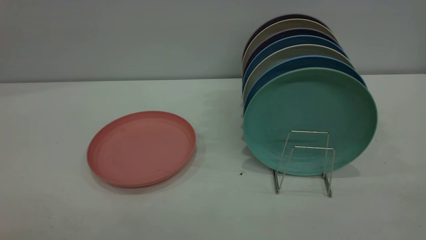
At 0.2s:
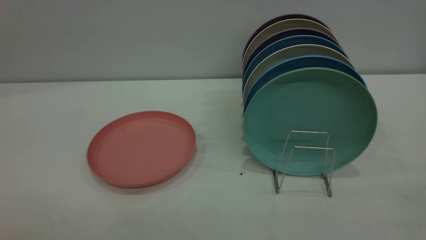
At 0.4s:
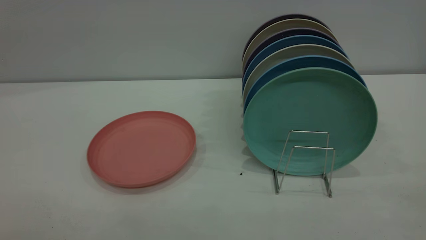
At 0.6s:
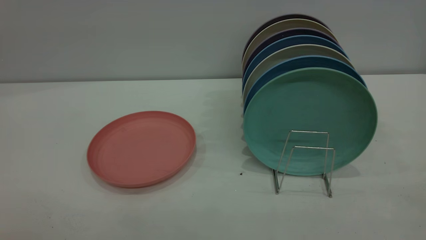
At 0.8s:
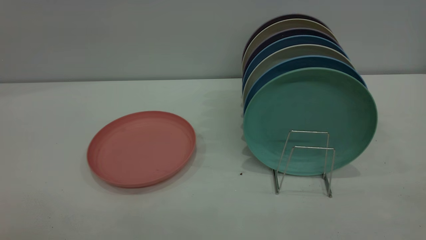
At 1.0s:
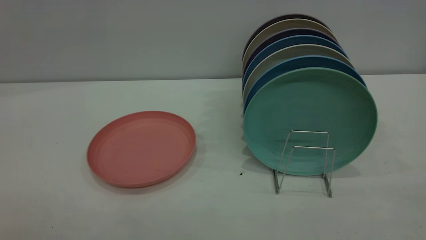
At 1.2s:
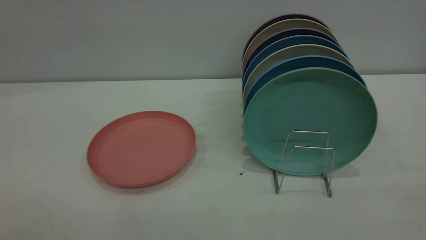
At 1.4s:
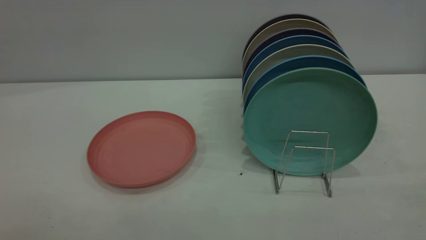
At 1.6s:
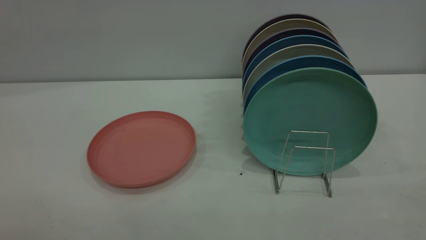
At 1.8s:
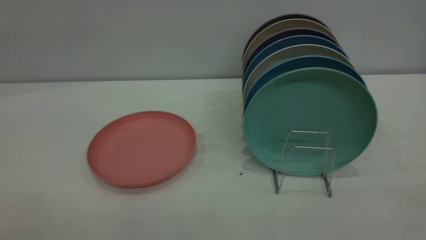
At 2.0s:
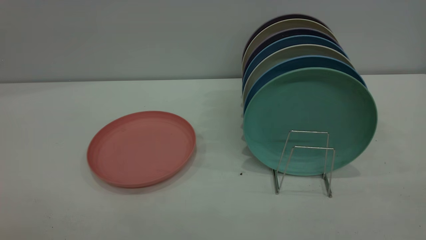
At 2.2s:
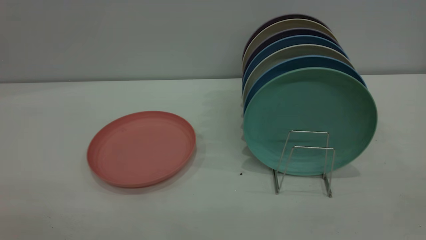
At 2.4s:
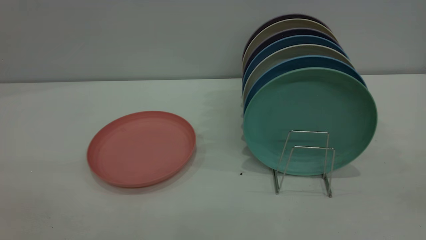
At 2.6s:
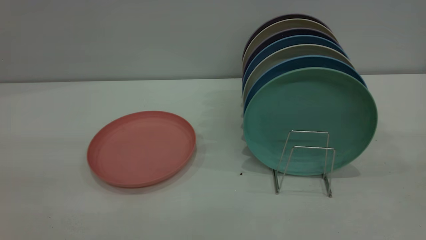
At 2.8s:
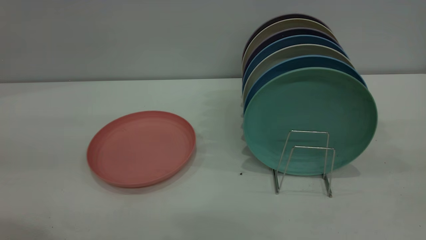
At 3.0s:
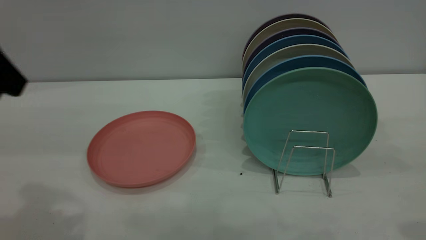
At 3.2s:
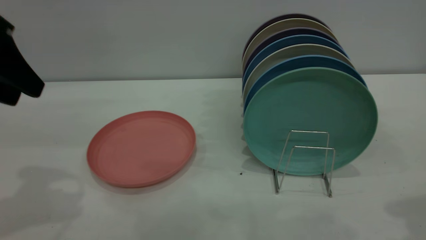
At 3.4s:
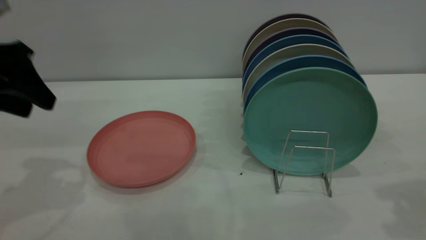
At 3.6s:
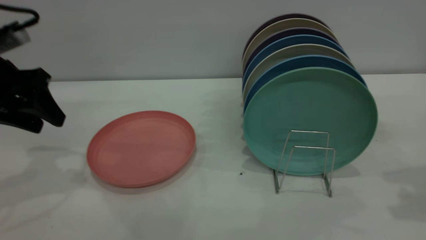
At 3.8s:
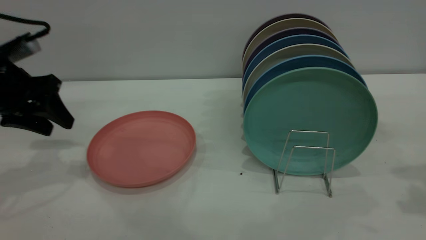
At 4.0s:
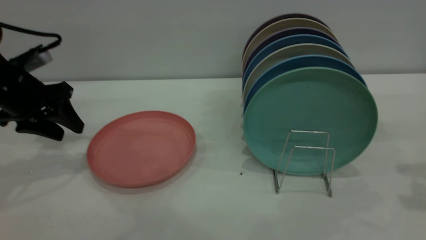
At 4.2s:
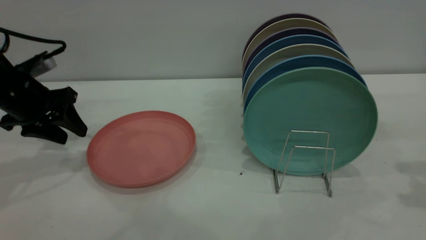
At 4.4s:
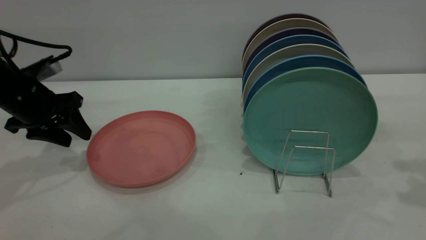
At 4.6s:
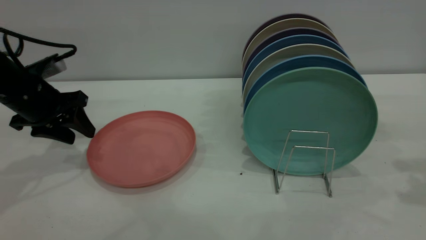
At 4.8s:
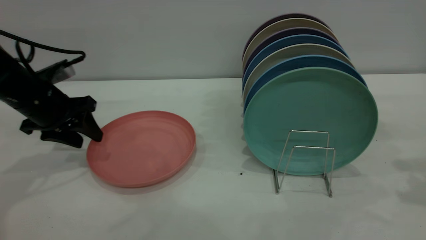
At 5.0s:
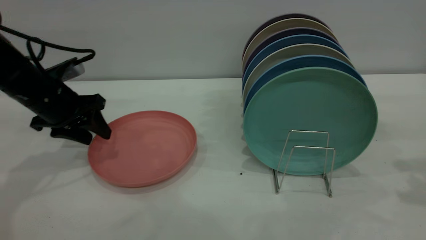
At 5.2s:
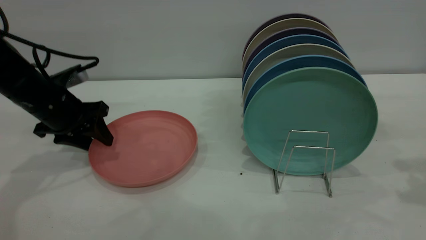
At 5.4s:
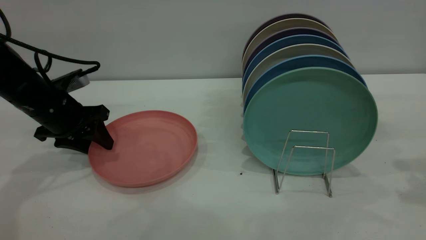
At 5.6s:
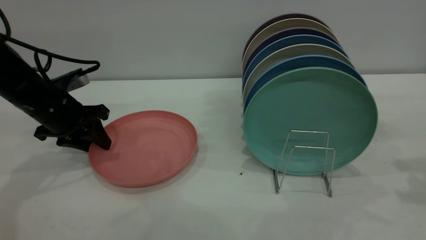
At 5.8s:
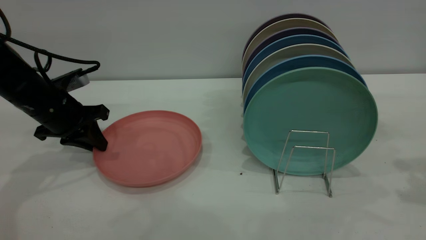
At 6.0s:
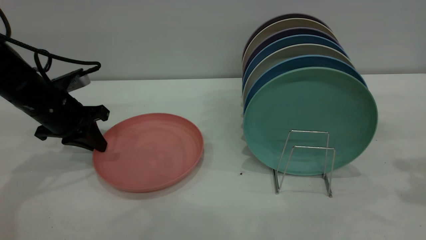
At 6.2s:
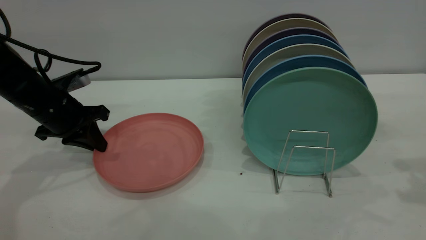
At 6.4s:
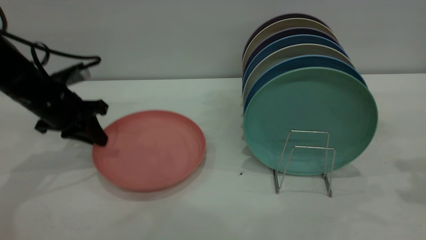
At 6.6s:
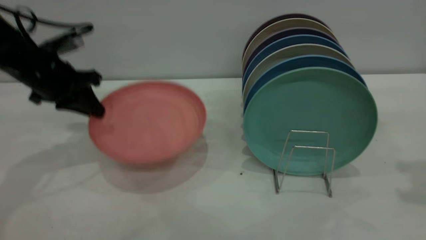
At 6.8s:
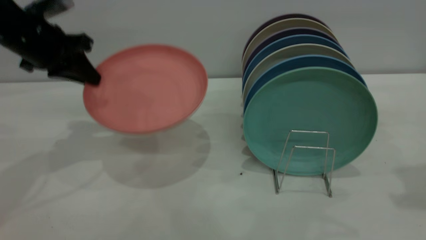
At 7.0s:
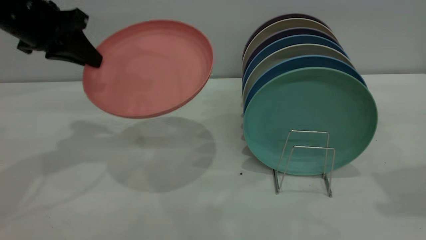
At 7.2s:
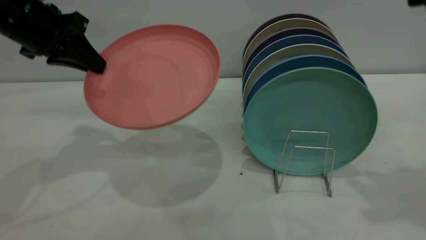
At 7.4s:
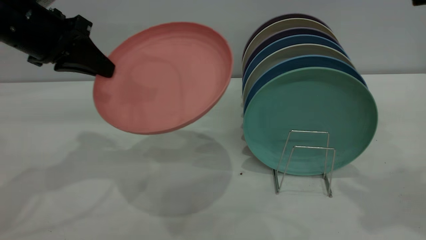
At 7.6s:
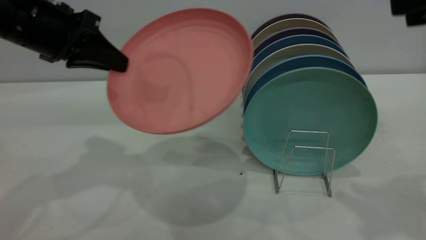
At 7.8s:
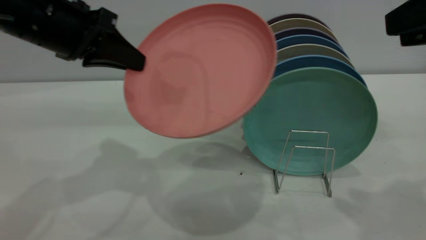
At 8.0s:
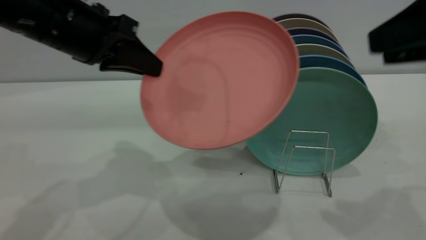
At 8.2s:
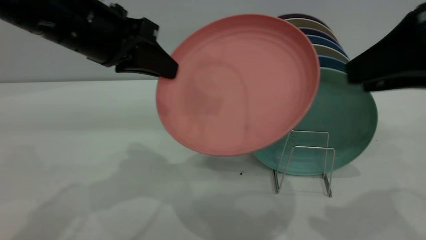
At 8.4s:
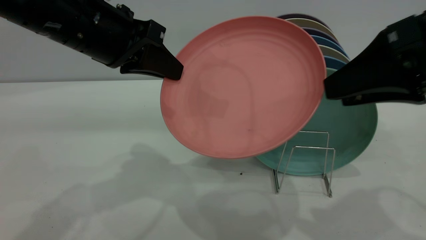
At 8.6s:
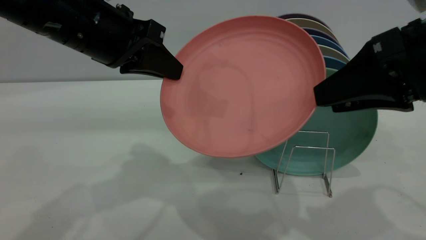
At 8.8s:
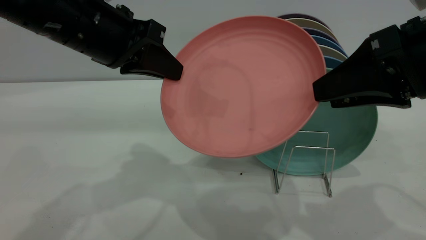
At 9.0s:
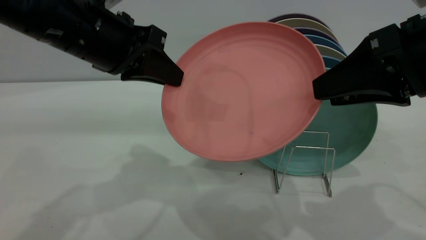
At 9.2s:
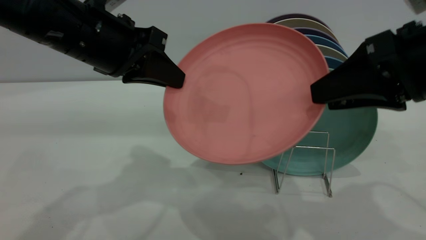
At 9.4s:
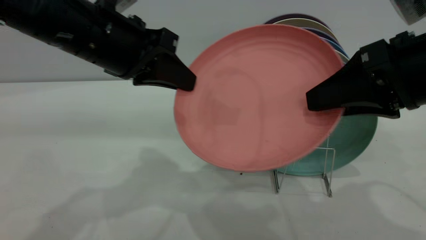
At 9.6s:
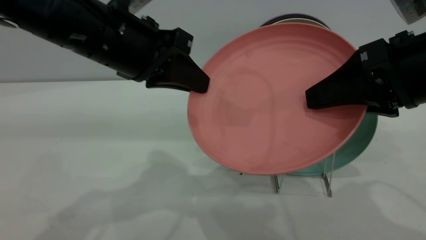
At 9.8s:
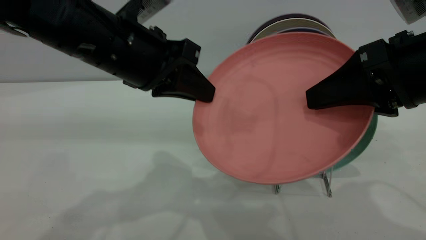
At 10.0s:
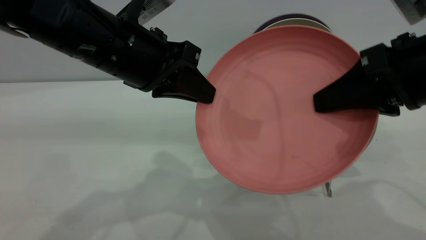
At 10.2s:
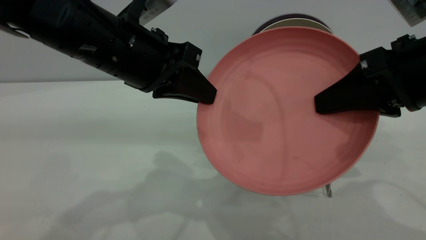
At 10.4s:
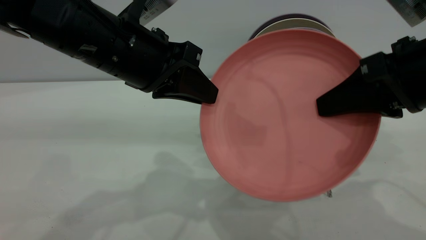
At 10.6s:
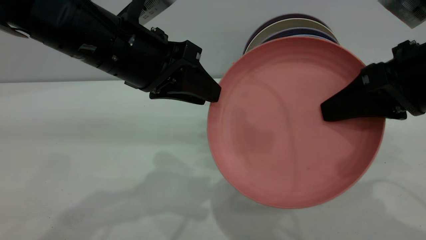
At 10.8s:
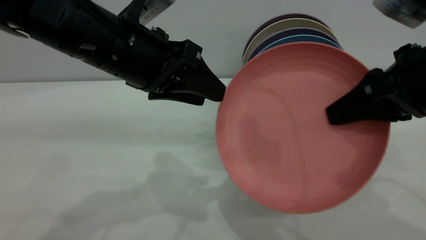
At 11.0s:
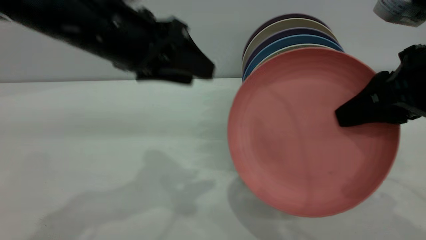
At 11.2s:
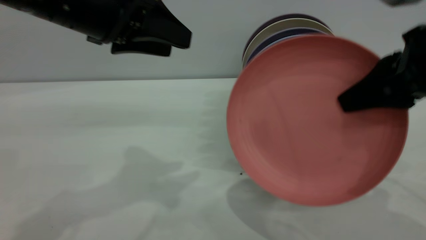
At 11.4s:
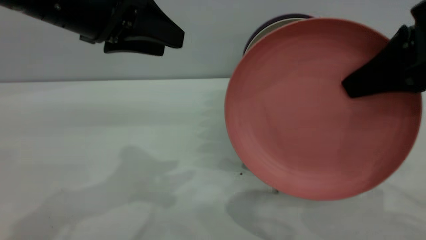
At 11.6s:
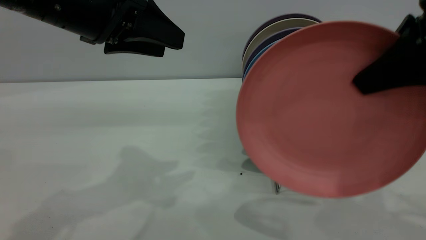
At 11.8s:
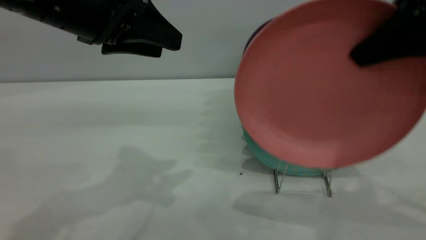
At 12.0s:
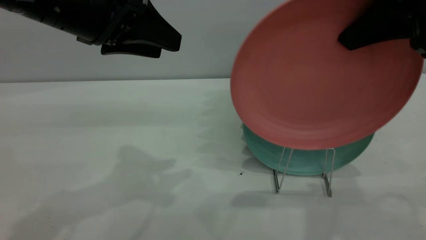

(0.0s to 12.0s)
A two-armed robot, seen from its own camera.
Task of the whole recording: put the plate on the plate rack.
Step, 0.0s - 6.6s: Pick up the plate with the left gripper.
Step, 6.8s - 10.8s: Pass the plate from the left gripper to the right gripper.
0.0s - 1.6s: Both grippers stay put.
1.6s - 3.0s: The left gripper shifts approximately 25 cm forward.
3.0s - 4.4s: The left gripper heads downward and forward, covering approximately 20 cm.
4.4s - 6.0s: The left gripper closes.
6.0s - 7.6s: The right gripper travels upward and to the left by roughly 10 cm, while the left gripper heads upward and backward, covering about 15 cm.
7.6s - 9.0s: The right gripper moves downward and to the left, roughly 10 cm. Meanwhile the left gripper heads to the right, covering about 5 cm.
9.0s - 10.4s: The right gripper closes its fingers.
10.4s - 12.0s: The right gripper travels upward by roughly 10 cm. The left gripper shifts by some 5 cm, and opens its fingers.

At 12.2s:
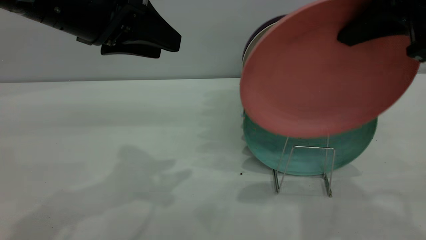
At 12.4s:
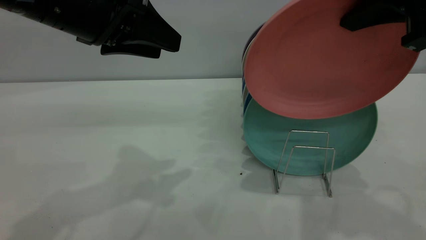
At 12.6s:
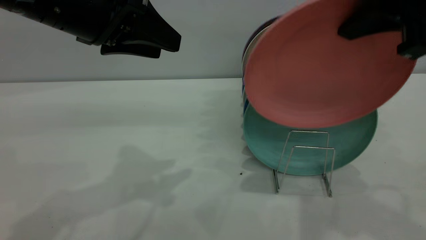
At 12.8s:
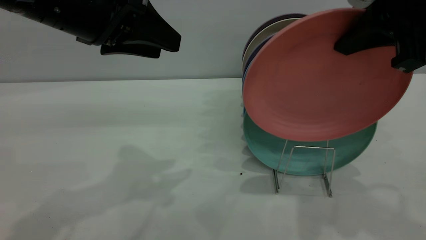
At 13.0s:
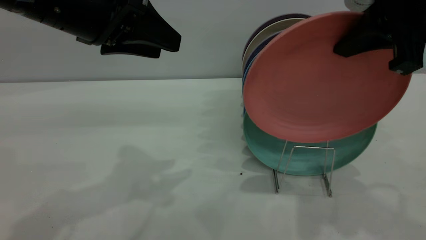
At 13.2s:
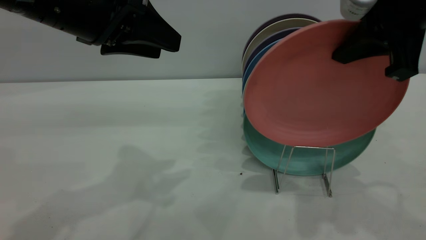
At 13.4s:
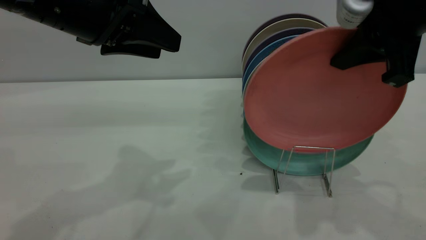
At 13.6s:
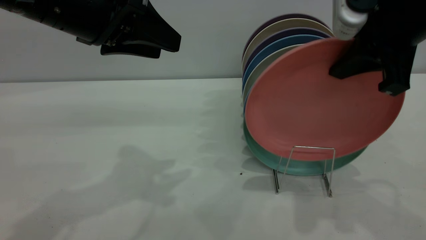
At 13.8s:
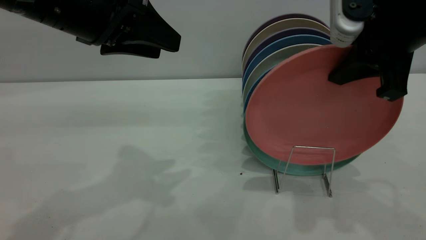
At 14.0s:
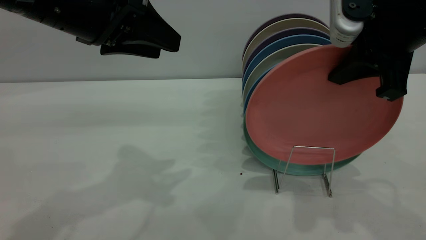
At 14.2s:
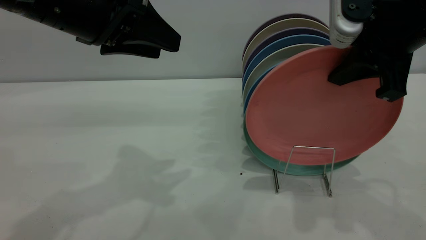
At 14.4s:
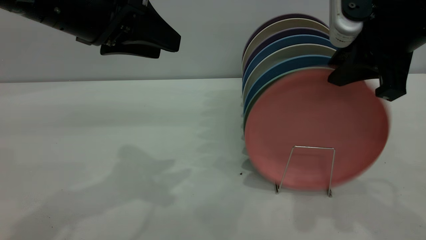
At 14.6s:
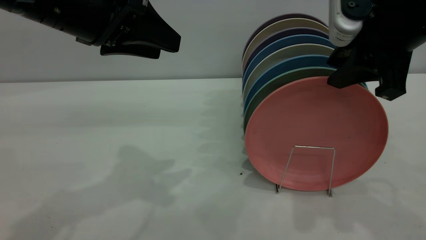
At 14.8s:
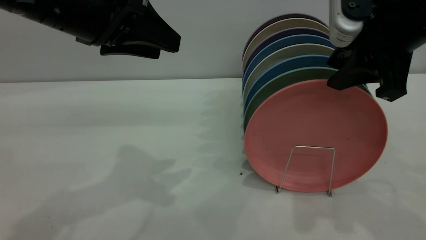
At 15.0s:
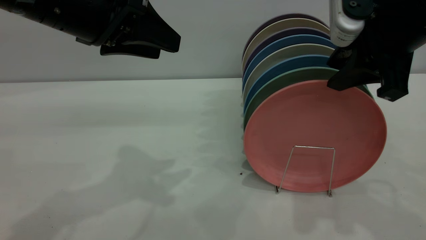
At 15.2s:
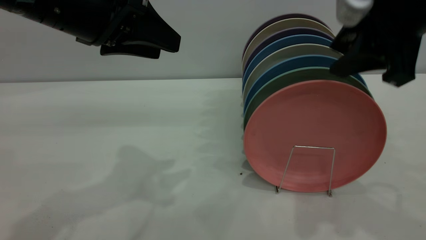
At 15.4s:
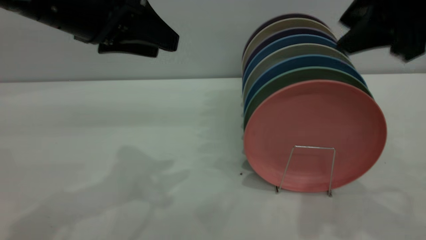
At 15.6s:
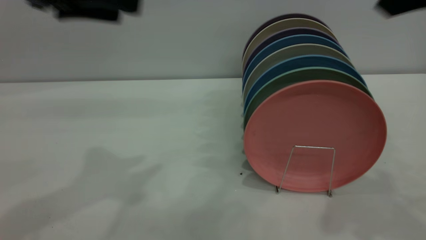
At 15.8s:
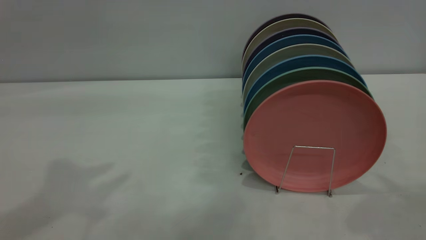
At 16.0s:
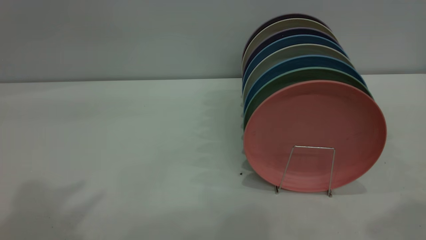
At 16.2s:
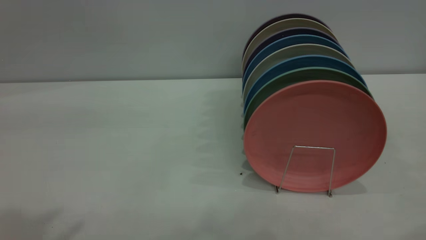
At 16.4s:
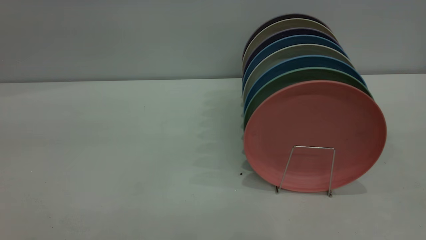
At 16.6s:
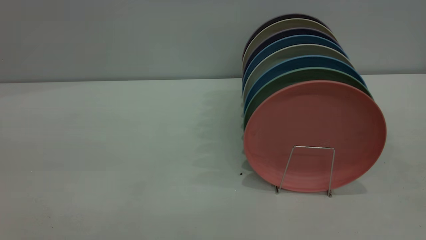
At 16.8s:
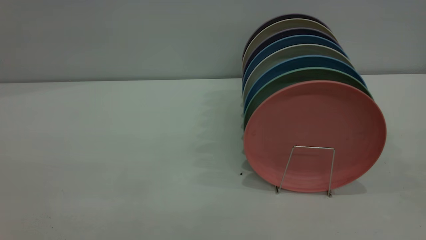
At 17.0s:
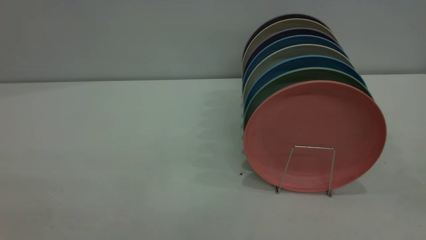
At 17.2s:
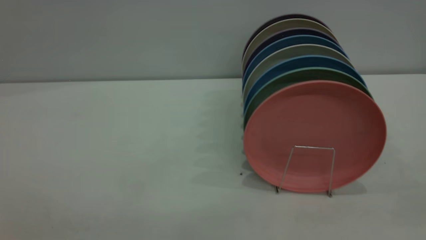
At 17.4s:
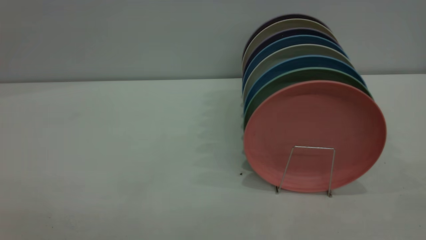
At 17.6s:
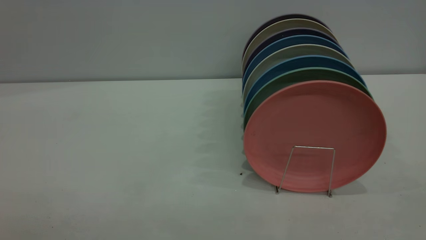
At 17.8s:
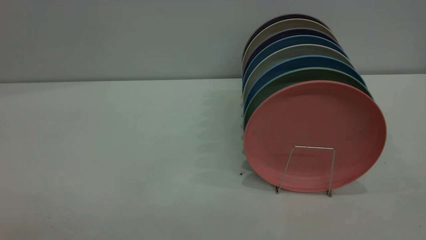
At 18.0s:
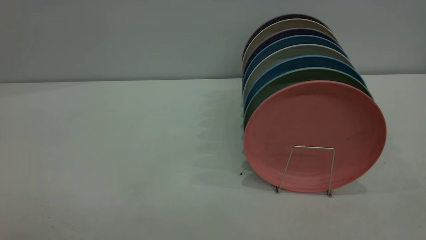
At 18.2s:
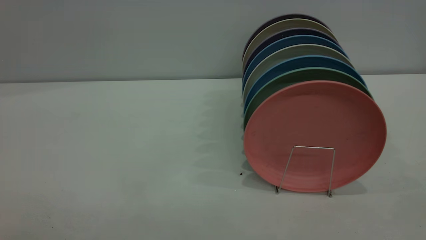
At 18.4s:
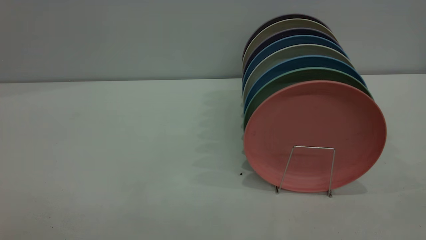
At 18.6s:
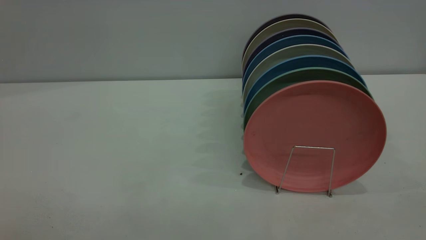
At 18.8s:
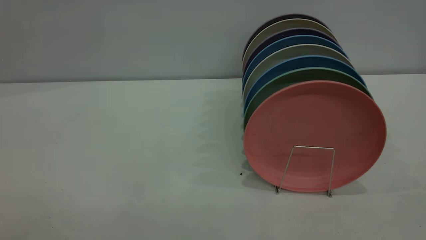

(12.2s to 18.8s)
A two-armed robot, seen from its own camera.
Task of the whole recording: put the plate on the plate rack.
Step, 12.2s - 15.4s: Place the plate on the shelf.
12.2s - 13.8s: The right gripper shifts about 5 cm downward.
13.8s - 15.4s: The right gripper goes roughly 5 cm upward, and opens.
15.4s - 17.2s: Both grippers move backward, some 30 cm.
